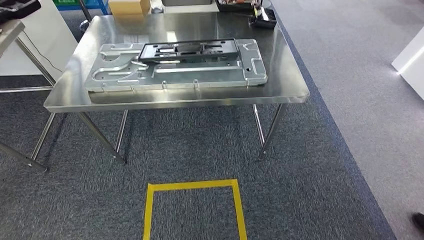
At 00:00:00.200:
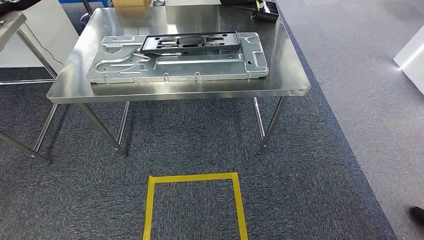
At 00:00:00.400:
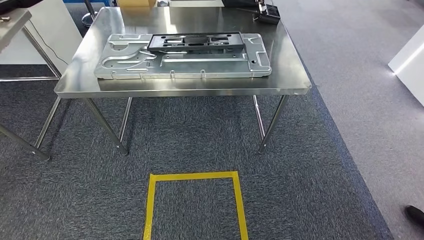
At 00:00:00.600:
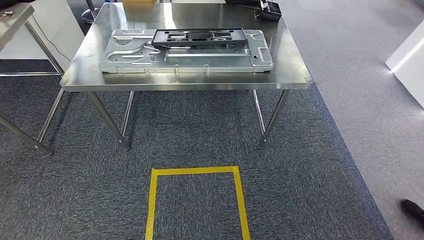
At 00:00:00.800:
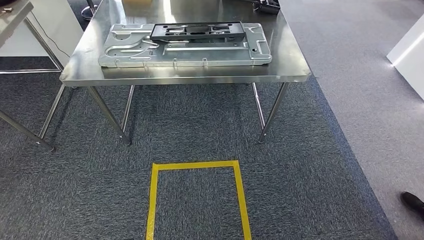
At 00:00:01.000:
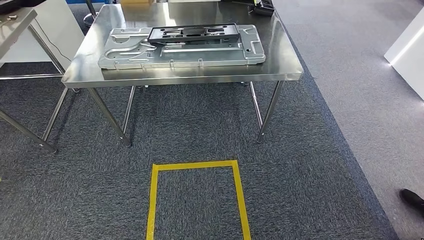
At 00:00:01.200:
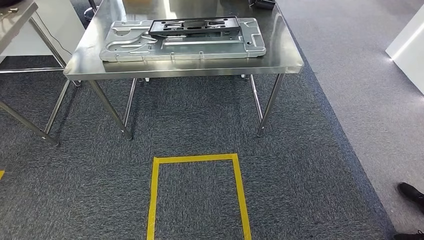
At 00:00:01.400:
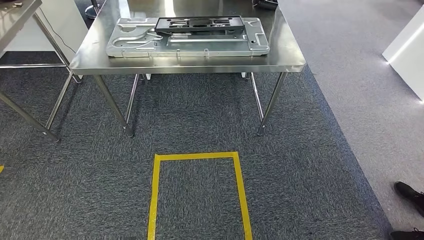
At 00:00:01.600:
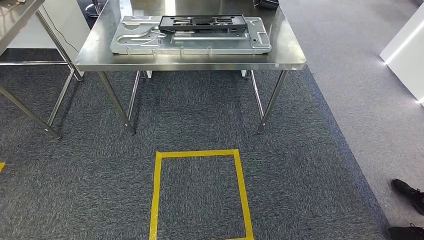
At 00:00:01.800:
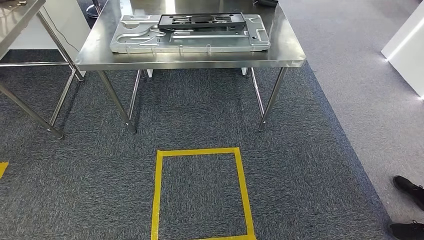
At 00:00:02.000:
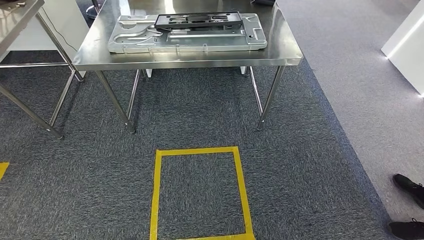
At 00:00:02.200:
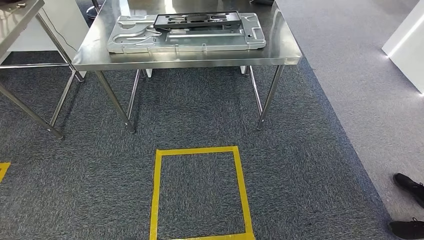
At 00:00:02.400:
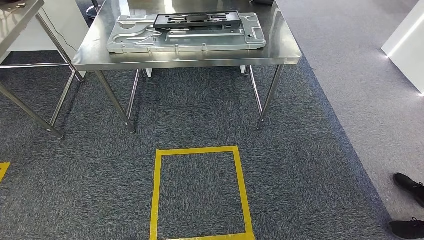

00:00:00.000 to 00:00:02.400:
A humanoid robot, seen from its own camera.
Step, 00:00:00.400 to 00:00:02.400: Move to the initial position of the shelf.
00:00:01.200 to 00:00:02.400: Both hands stay about where they are.
